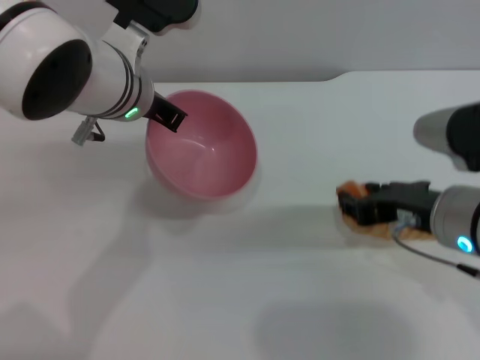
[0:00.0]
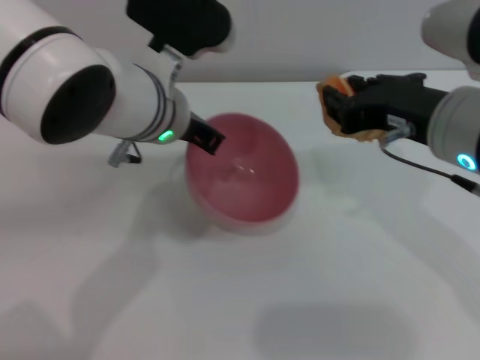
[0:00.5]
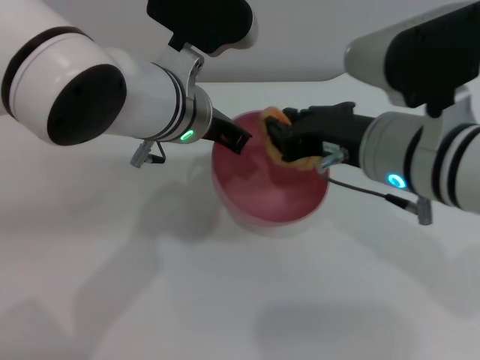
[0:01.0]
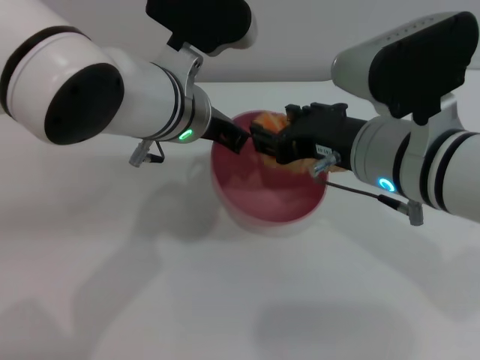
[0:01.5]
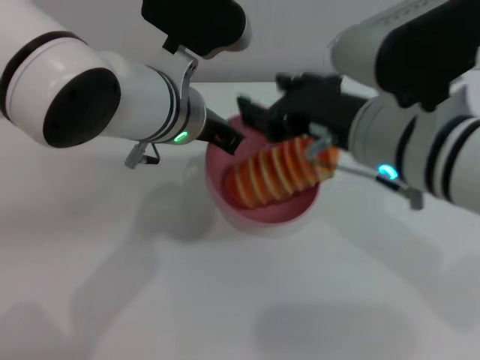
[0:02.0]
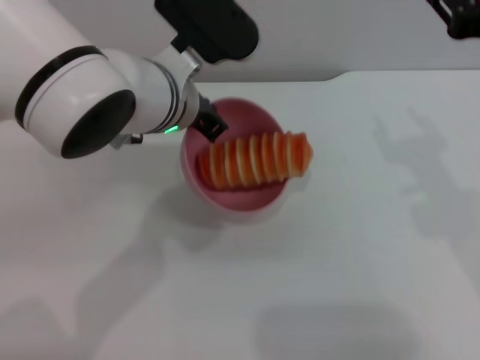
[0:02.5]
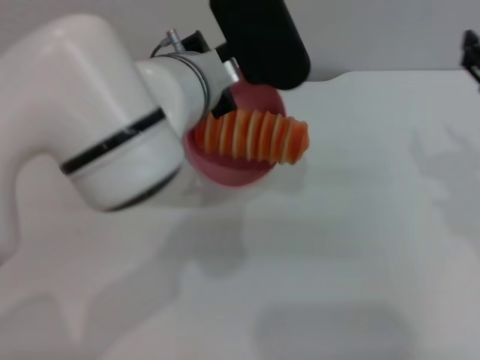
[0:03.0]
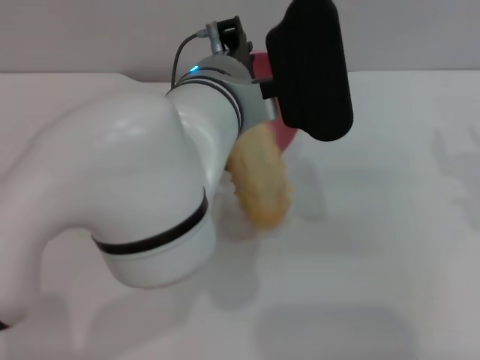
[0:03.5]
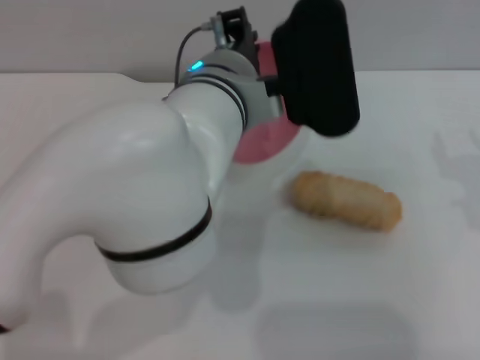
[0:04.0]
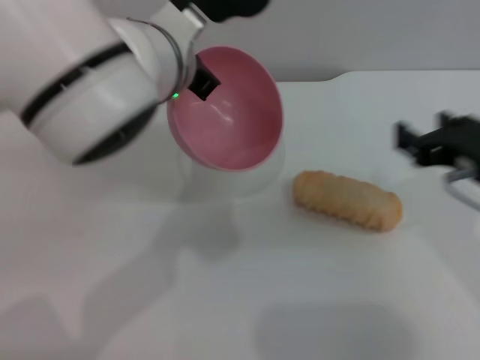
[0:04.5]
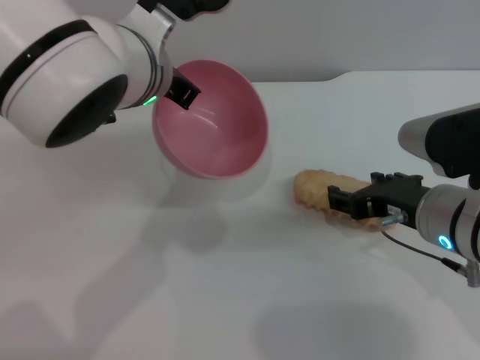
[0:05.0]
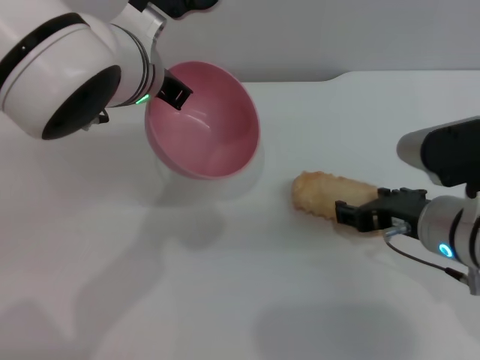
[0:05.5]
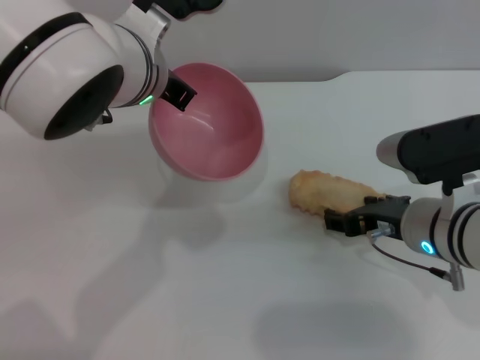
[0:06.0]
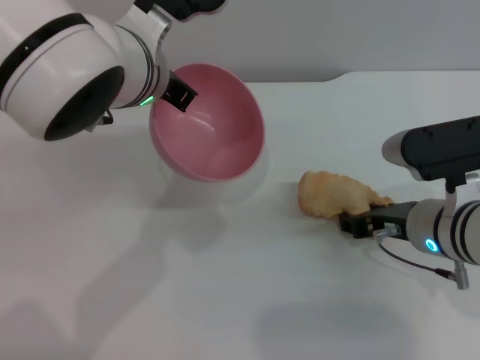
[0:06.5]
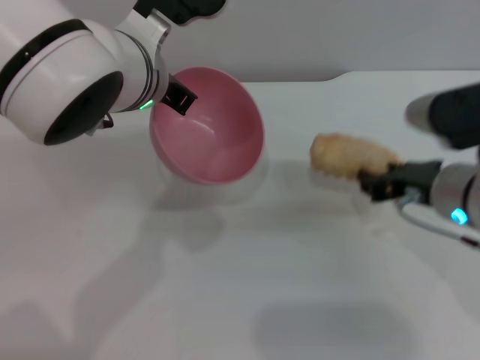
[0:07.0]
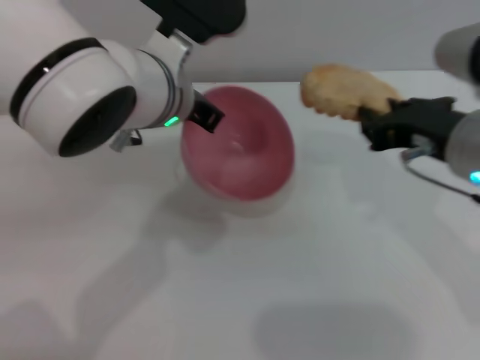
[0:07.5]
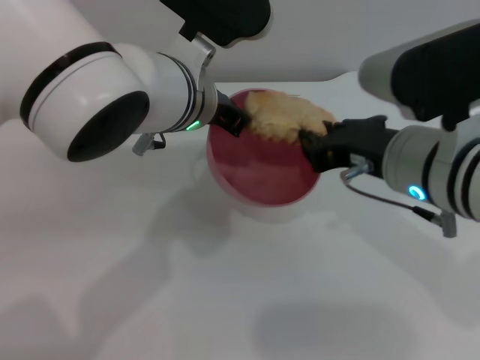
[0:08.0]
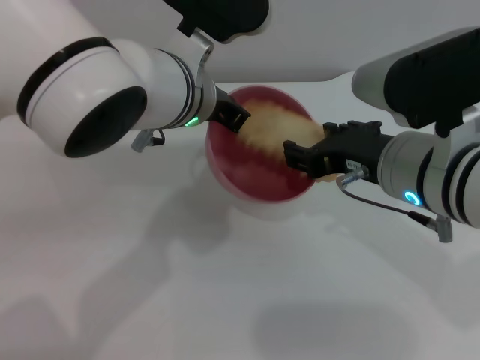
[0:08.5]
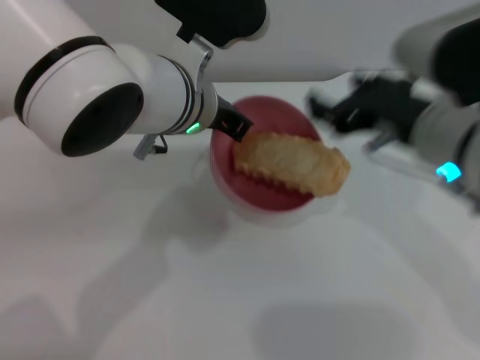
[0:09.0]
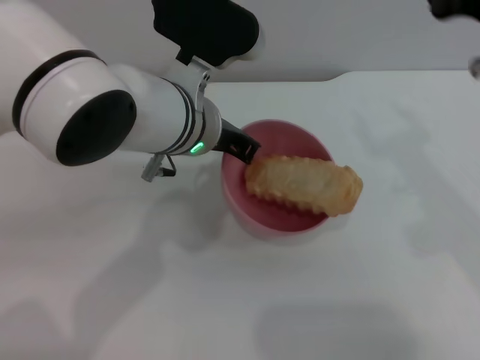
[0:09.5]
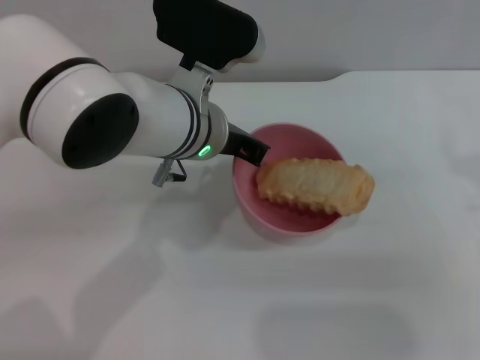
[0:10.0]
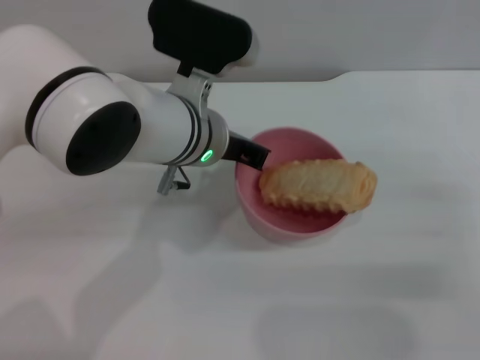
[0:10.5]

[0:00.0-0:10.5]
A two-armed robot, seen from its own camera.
Task of the whole recording: put the bread into the pink bowl and pour it out repeatedly.
Step, 0:00.5 to 0:02.0: Place the bread into the bowl.
Step, 0:02.5 to 0:04.0: Pour the bread out of the bowl.
Step, 0:04.5 to 0:07.0: Pick up the bread with the right gripper.
Step, 0:07.5 to 0:08.5: Place the bread into the bowl.
0:00.0 to 0:02.0: The right gripper travels to the left and upward by some 10 cm.
0:02.0 to 0:04.0: The right gripper heads to the right, covering roughly 15 cm. The left gripper is displaced to the right by about 5 cm.
0:04.0 to 0:06.5: The right gripper shifts roughly 15 cm downward and to the left. The left gripper moves to the left, approximately 5 cm.
0:06.5 to 0:08.5: The right gripper moves upward and to the left, about 10 cm, and closes, then opens again.
0:08.5 to 0:10.5: The right gripper is displaced to the right by some 20 cm.

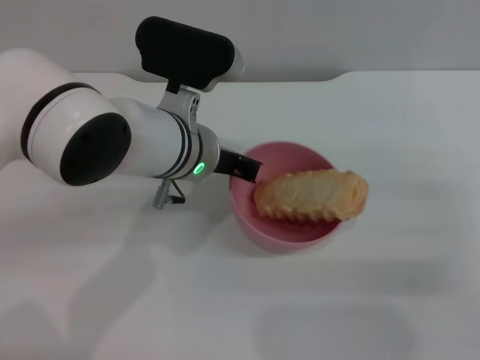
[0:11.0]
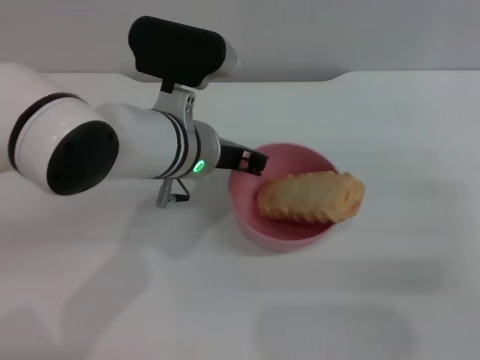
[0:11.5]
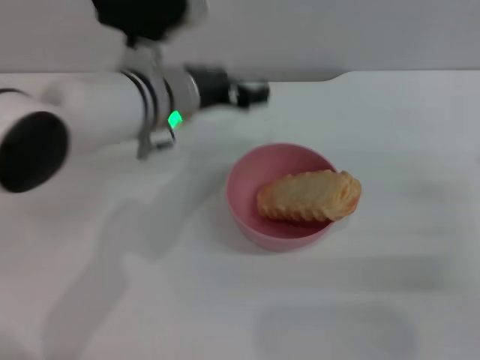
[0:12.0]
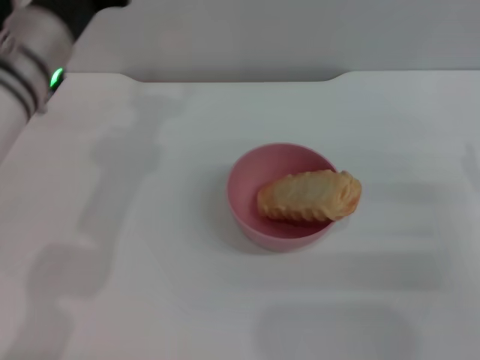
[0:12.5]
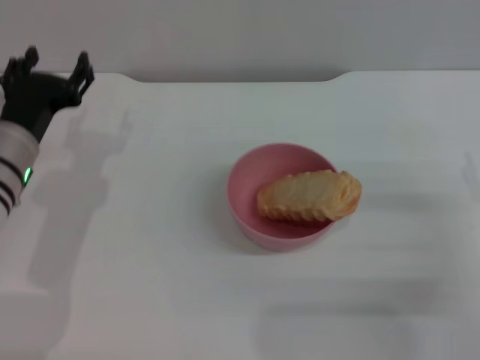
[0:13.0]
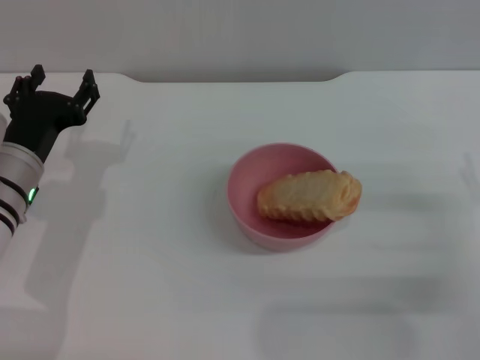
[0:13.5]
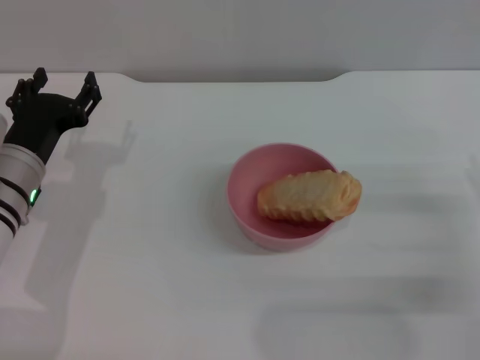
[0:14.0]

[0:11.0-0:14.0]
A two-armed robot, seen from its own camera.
Task of the whole recording: put the bread into the pink bowl and pour it out repeatedly.
0:11.0 to 0:12.5: The left gripper goes approximately 10 cm to the left, and opens up.
0:12.5 to 0:14.0: The left gripper is displaced downward and to the left by about 15 cm.

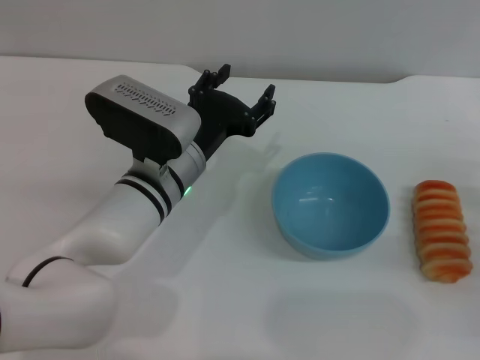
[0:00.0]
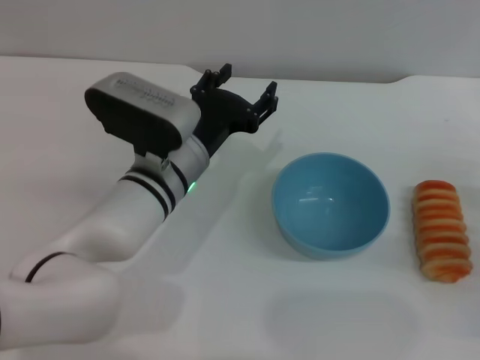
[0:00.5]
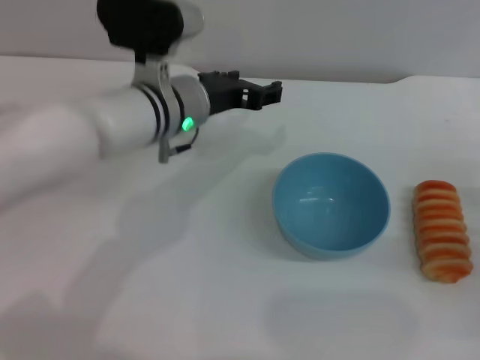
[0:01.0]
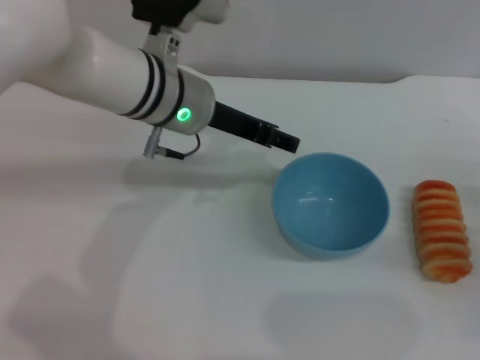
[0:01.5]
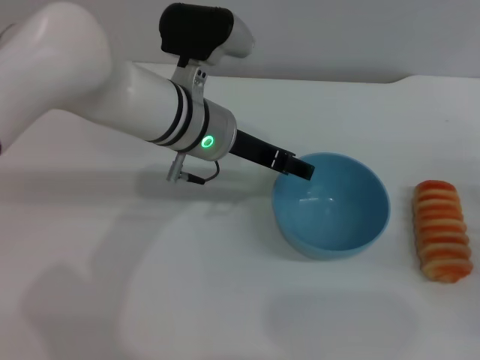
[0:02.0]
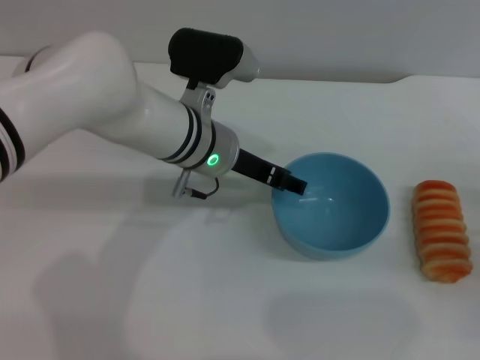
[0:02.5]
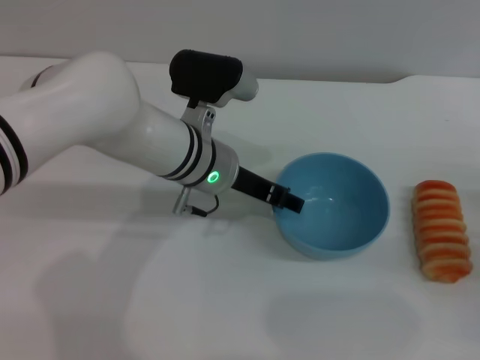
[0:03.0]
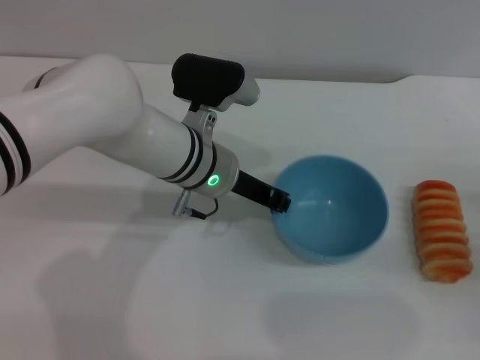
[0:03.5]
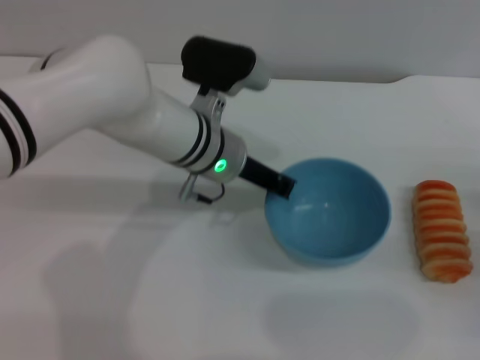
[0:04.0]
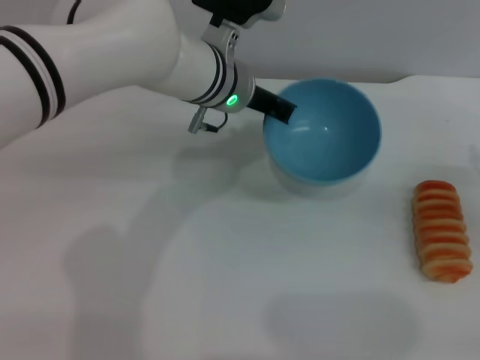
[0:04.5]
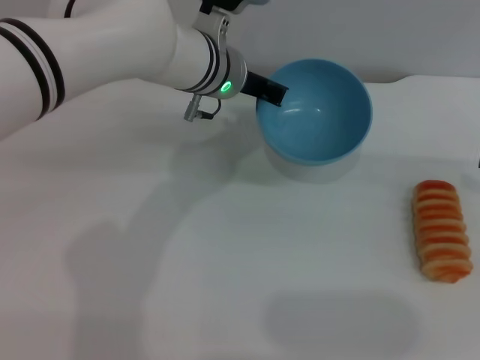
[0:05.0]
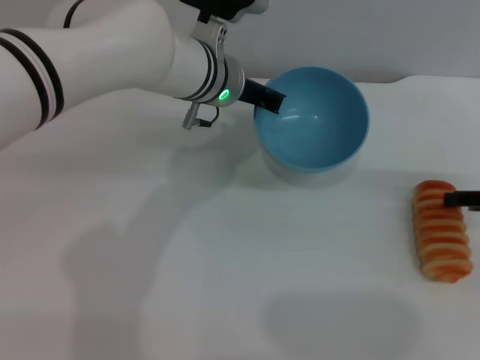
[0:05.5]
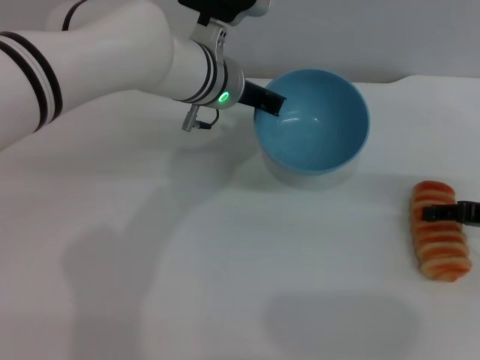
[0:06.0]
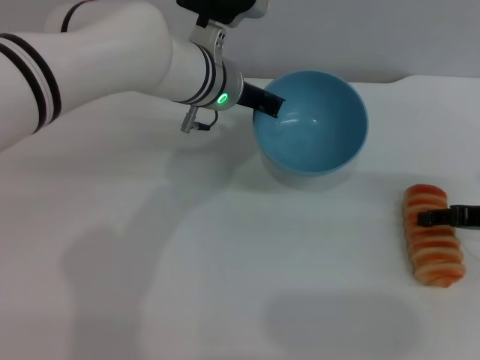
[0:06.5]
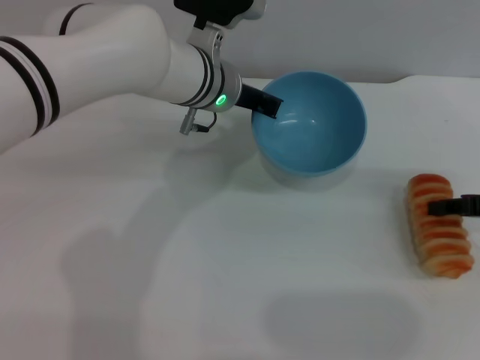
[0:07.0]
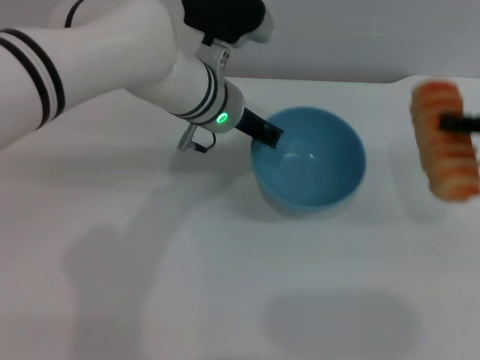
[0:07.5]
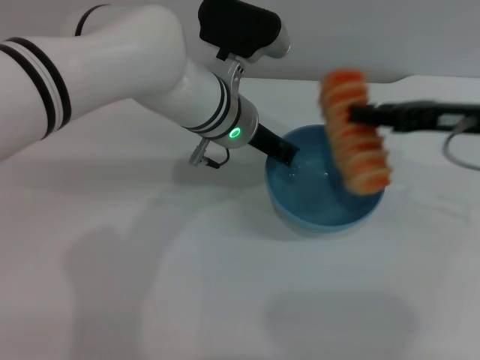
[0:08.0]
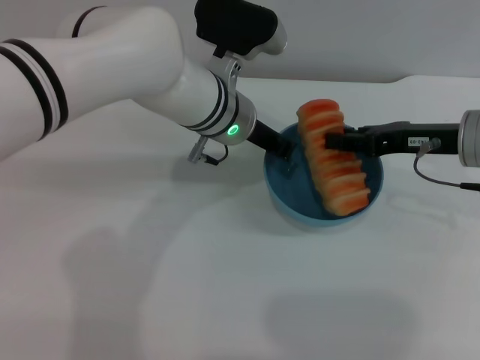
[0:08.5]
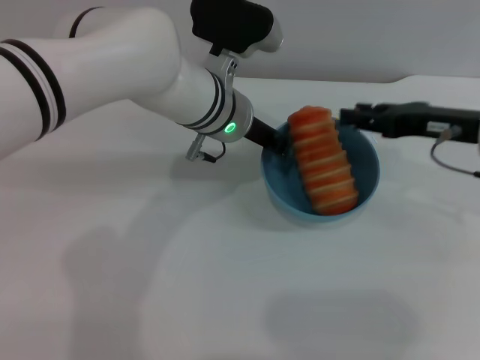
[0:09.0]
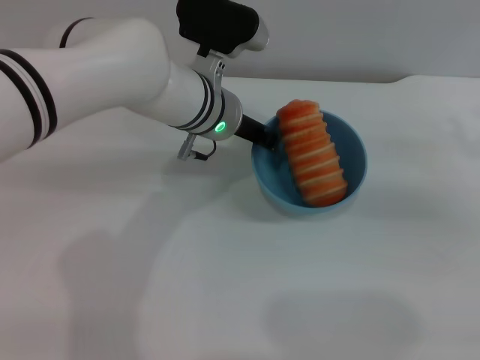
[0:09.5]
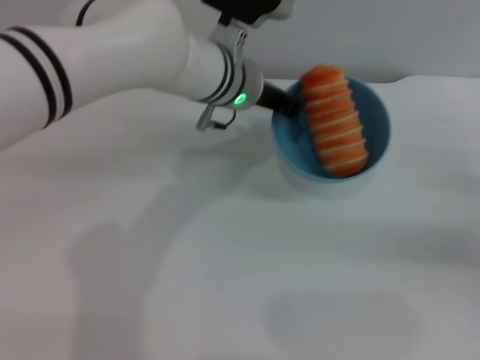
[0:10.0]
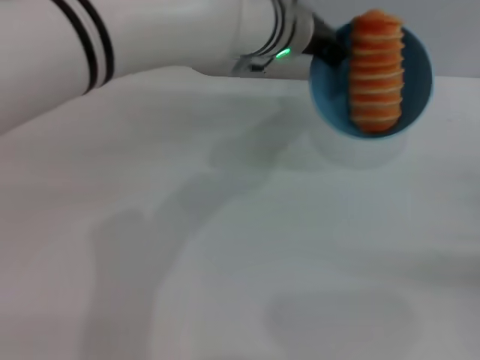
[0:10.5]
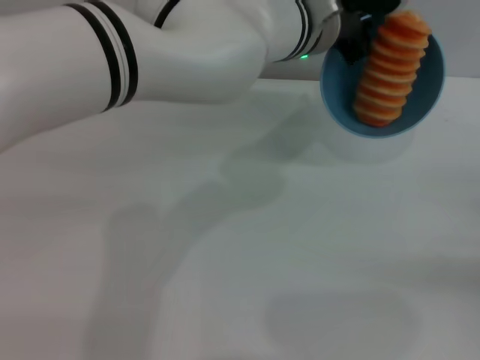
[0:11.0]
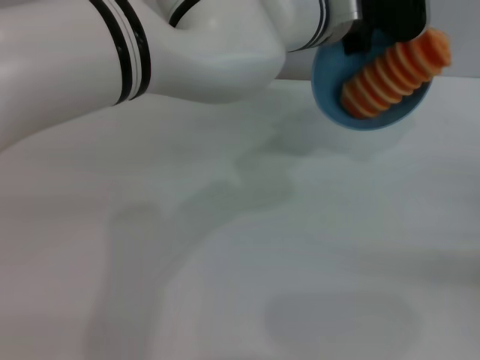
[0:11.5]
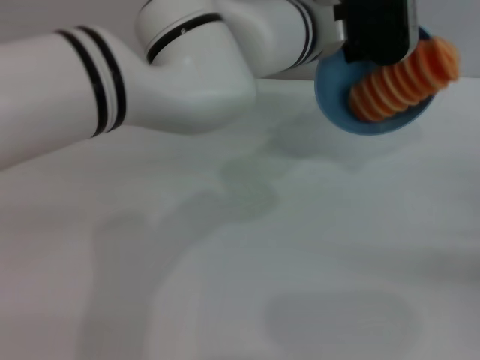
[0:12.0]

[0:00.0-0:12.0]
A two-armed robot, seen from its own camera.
Task of the whole recording: put the bread into the blue bowl and pour it out repeatedly.
Step, 0:00.0 to 0:04.5: Pick up the bowl with the left gripper.
Step, 0:05.0 to 0:07.0: Pick up the bread with the right gripper.
Step, 0:07.5 to 0:09.0: Place the bread into the bowl.
0:00.0 to 0:02.0: The left gripper heads upward and forward, covering approximately 10 cm.
0:02.0 to 0:04.0: The left gripper closes its fingers.
0:04.0 to 0:06.0: The grippers both shift forward by roughly 5 cm.
0:06.0 to 0:08.0: The right gripper is displaced to the left and upward by some 10 cm, and closes.
0:08.0 to 0:10.0: The right gripper shifts approximately 20 cm to the right, downward and backward, and opens up.
0:10.0 to 0:12.0: The left gripper shifts roughly 5 cm to the right.
